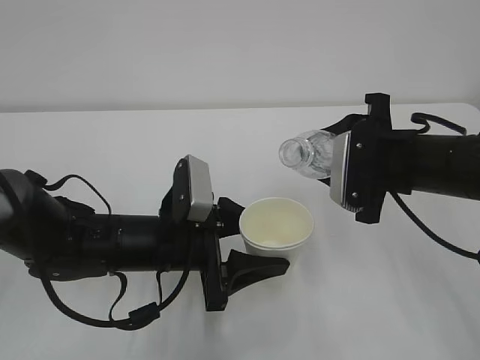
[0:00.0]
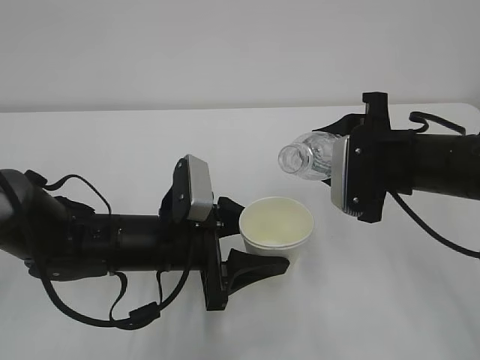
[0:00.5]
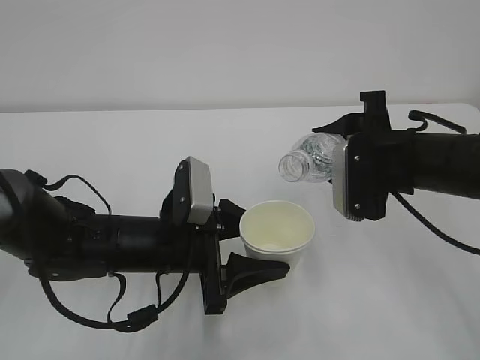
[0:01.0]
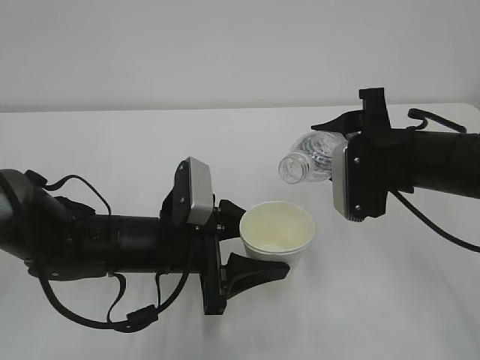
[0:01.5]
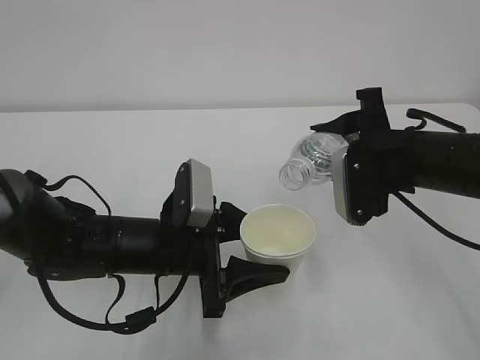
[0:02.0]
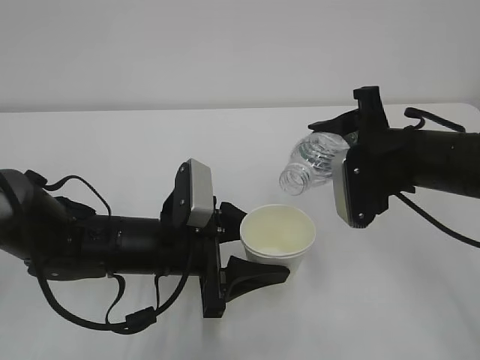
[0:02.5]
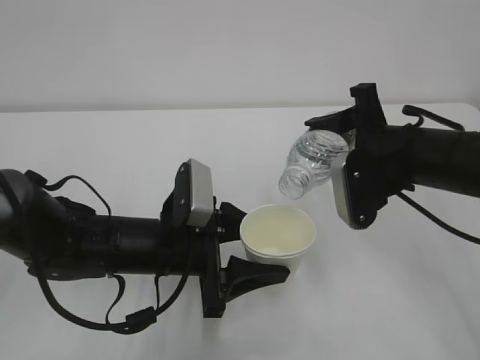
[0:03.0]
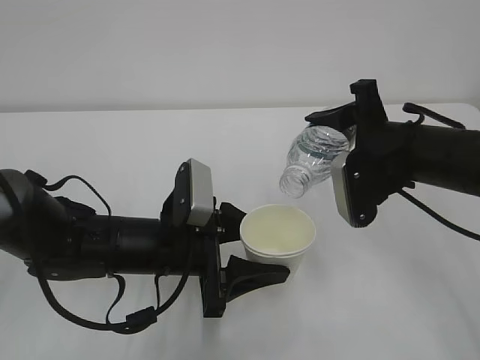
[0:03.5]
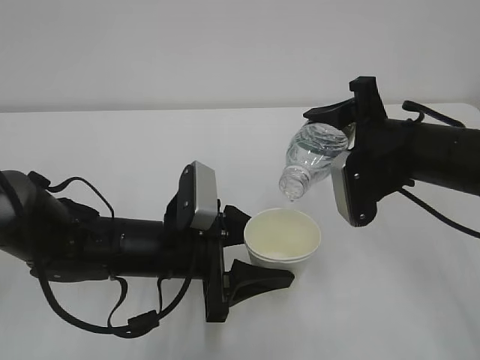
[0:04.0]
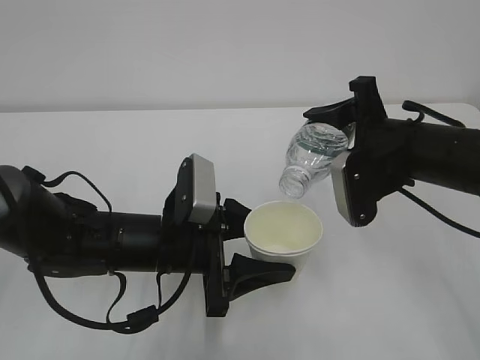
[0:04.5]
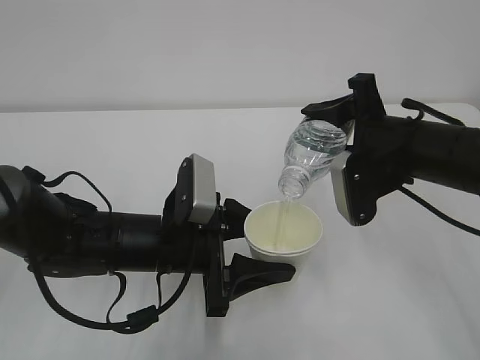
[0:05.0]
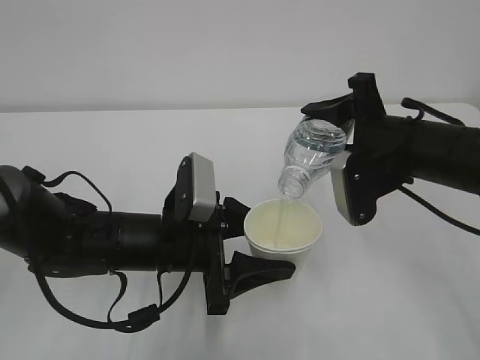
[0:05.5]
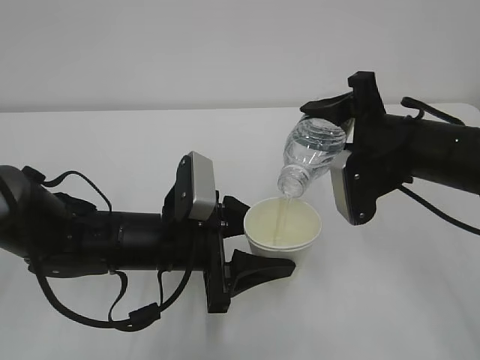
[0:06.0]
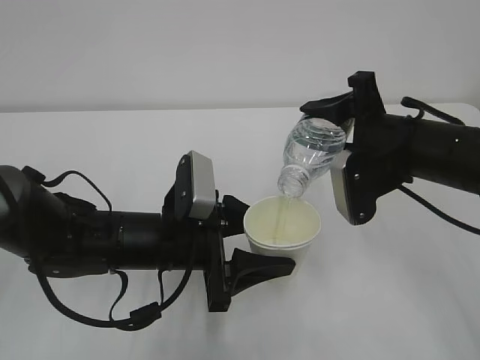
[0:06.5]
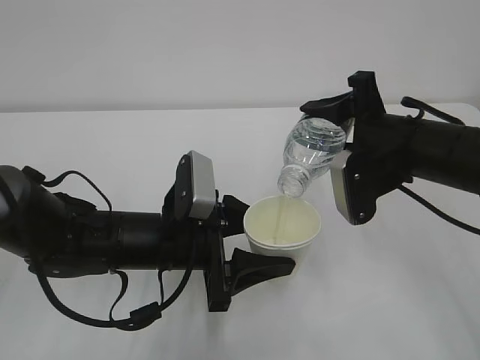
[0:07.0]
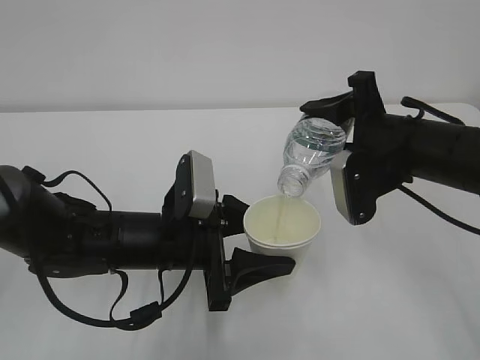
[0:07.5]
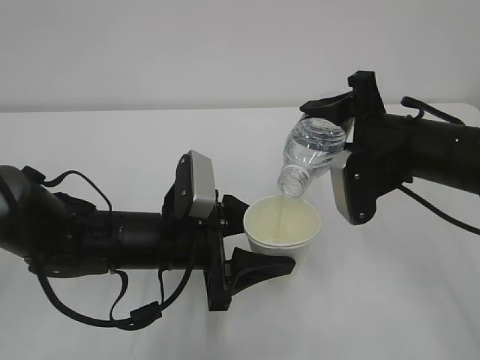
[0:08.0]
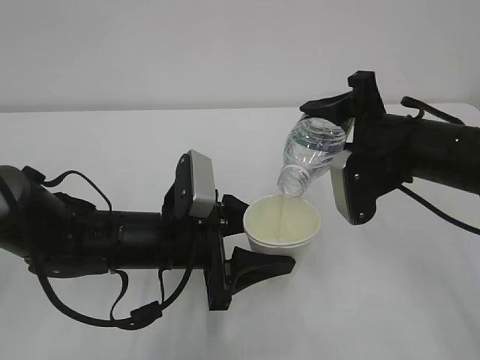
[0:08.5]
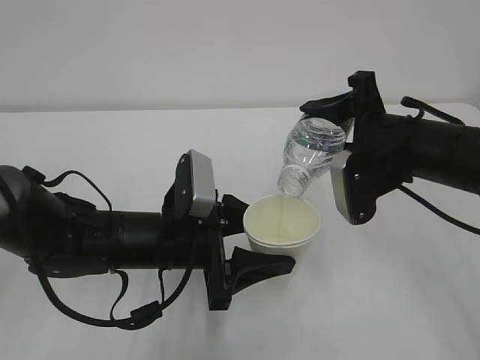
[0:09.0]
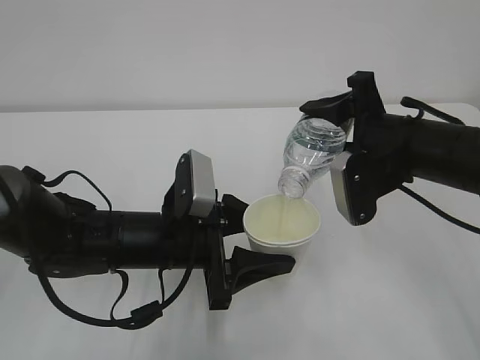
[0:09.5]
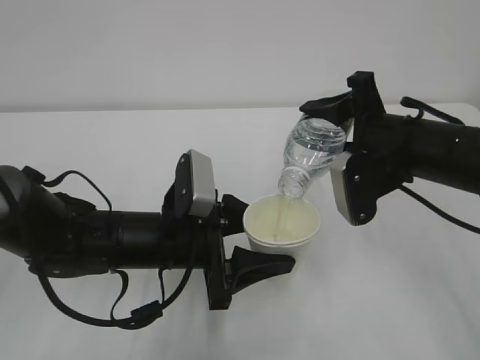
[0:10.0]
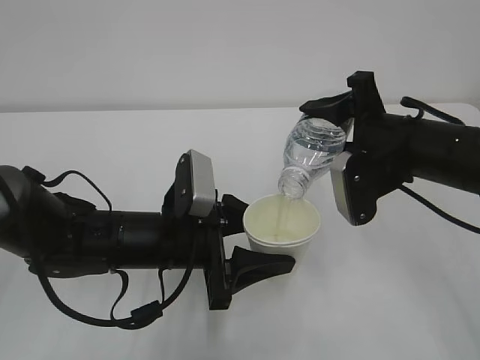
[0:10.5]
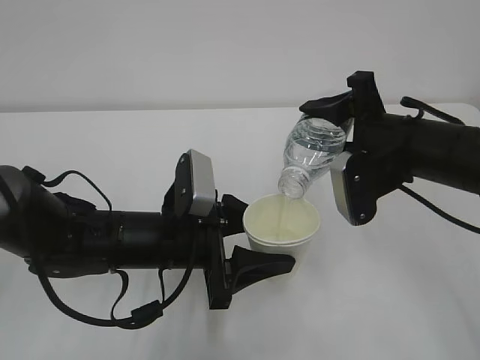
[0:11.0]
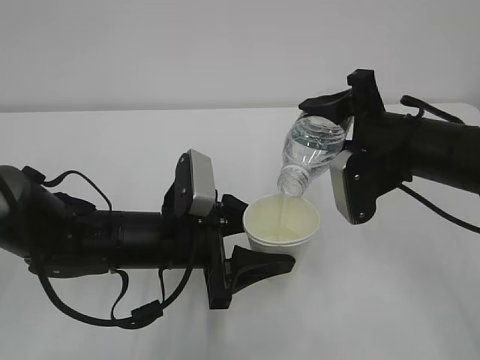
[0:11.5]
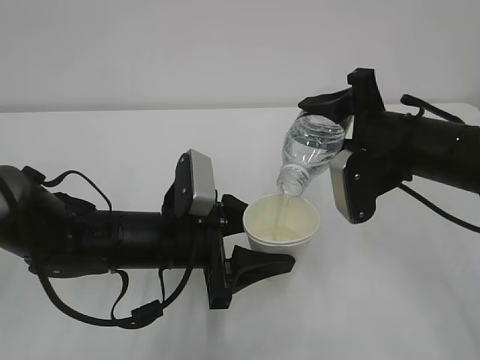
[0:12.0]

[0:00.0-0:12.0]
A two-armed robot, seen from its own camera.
0:00.0 to 0:02.0: The grippers move only a little.
0:02.0 to 0:04.0: The grippers move only a little.
0:04.0 to 0:08.0: Both grippers stay about where they are.
0:08.0 to 0:12.0: Both grippers stay about where they are.

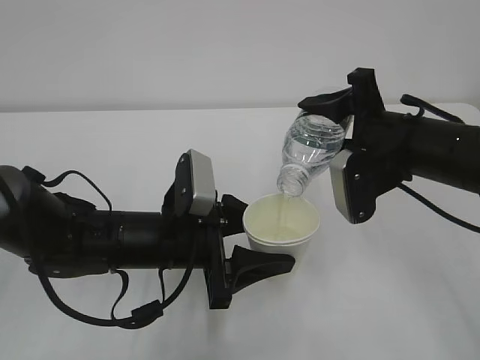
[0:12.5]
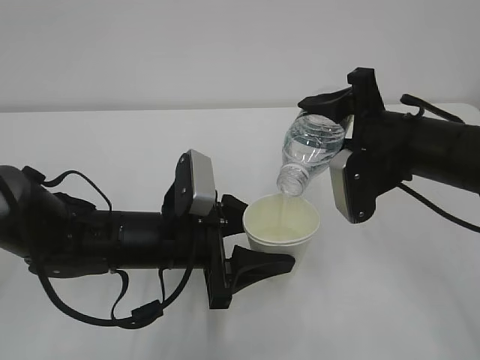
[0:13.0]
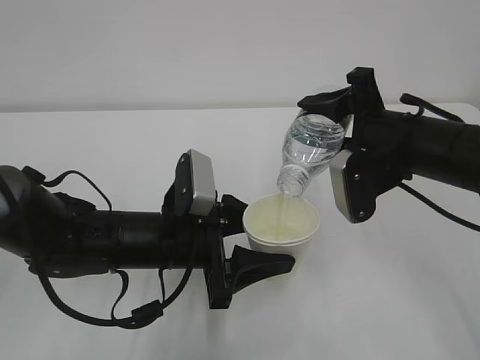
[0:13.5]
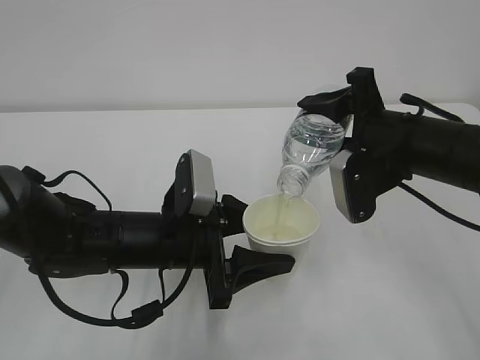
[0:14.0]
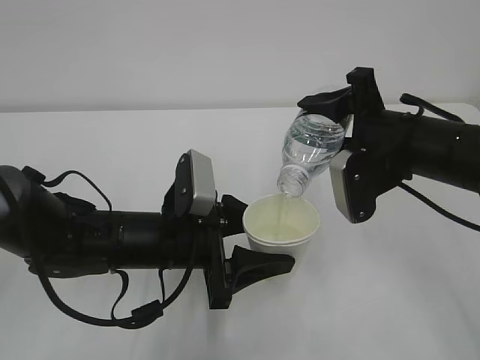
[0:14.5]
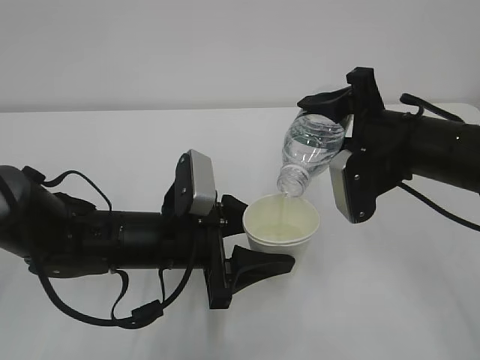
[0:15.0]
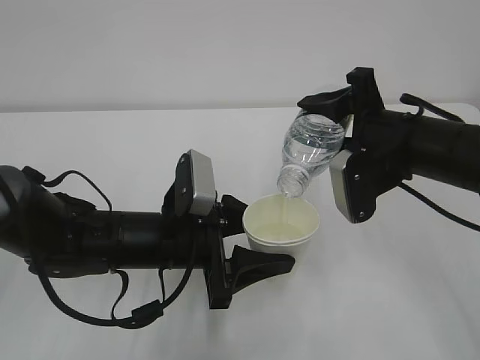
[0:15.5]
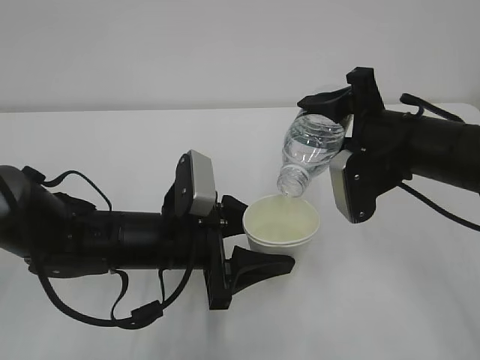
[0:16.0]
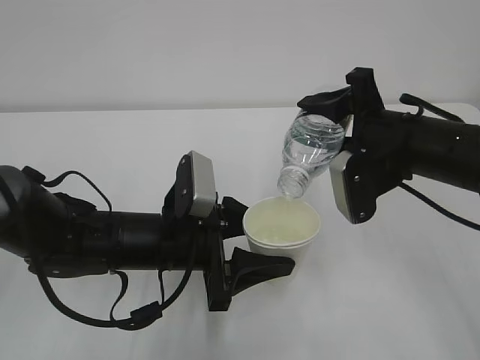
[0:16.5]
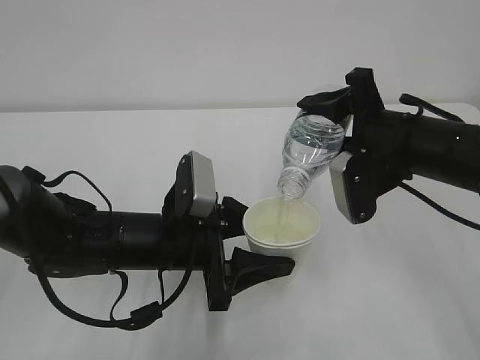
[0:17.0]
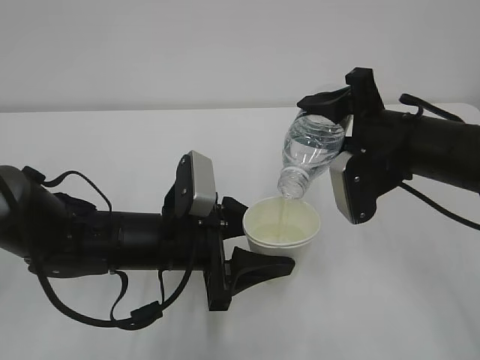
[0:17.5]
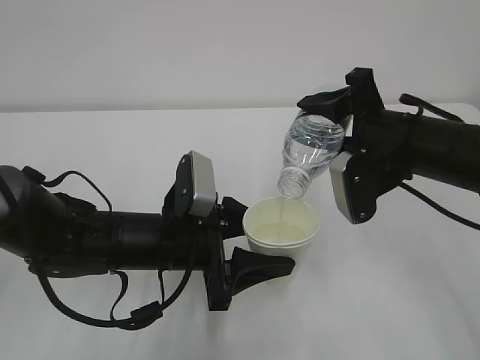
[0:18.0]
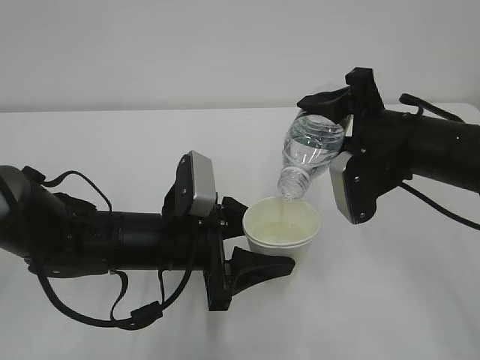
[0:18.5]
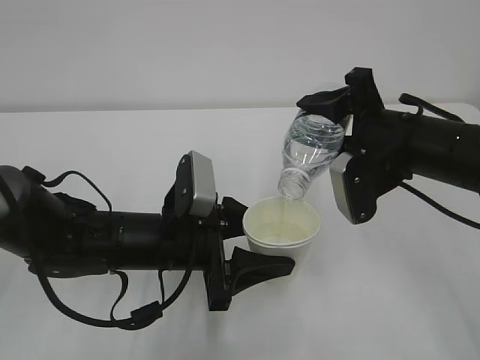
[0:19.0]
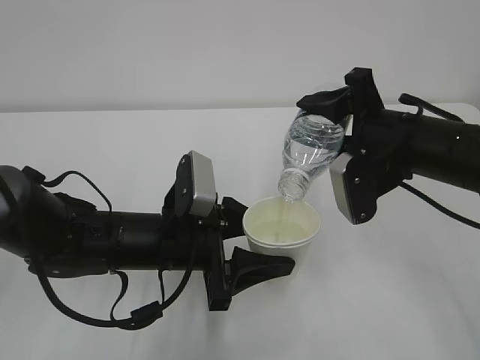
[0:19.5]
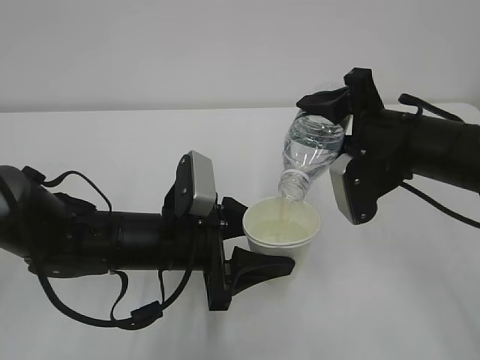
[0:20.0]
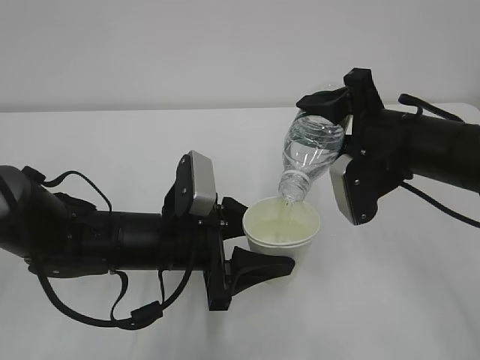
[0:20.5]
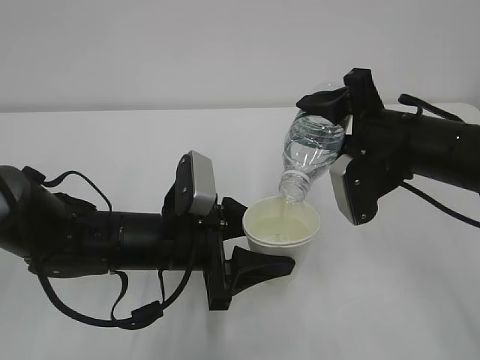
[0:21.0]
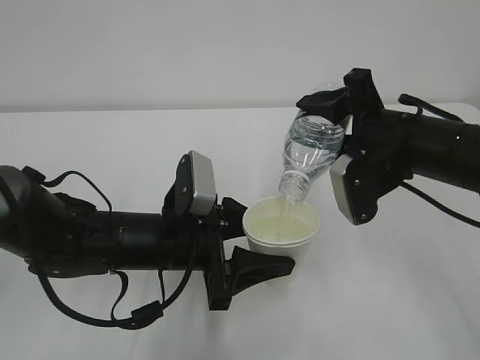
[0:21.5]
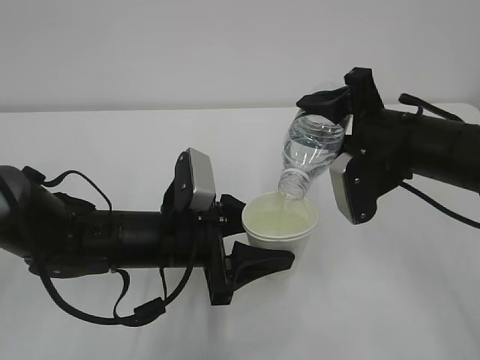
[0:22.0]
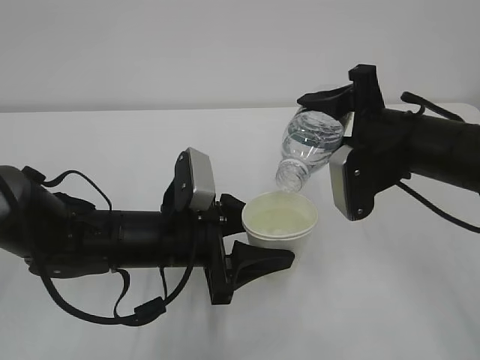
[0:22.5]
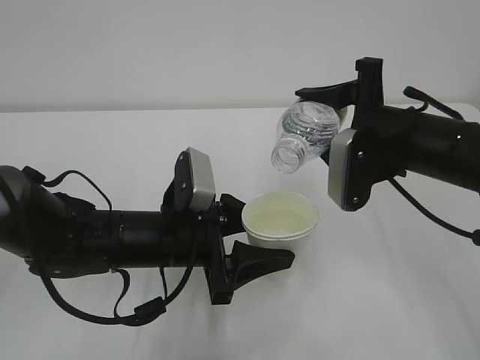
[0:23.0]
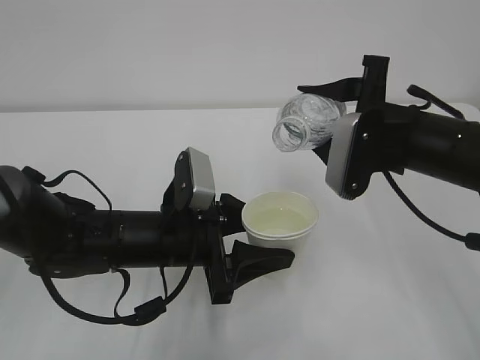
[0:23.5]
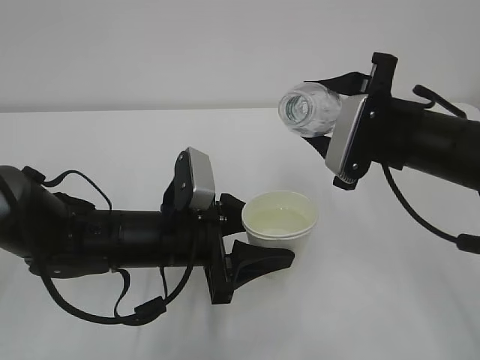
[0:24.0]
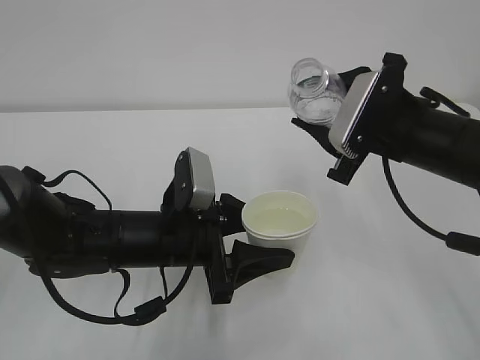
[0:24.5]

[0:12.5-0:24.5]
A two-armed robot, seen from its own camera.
0:12.5 to 0:18.5: The two grippers keep their place.
0:18.5 to 0:20.5: Neither gripper changes place.
0:20.5 to 0:22.5: There are only small adjustments of the grippers.

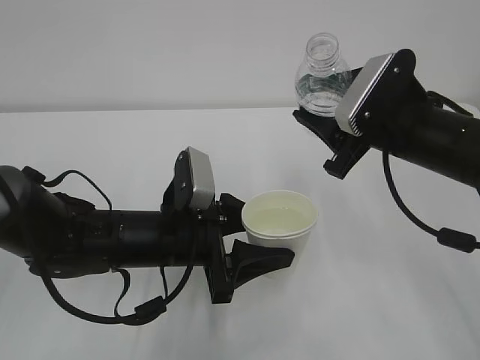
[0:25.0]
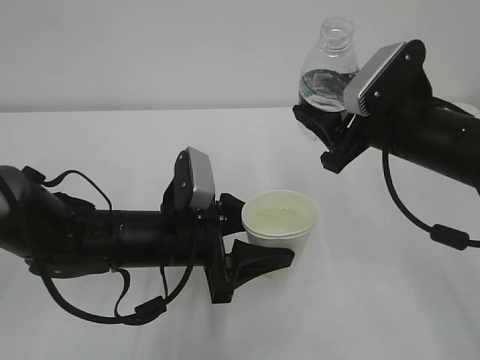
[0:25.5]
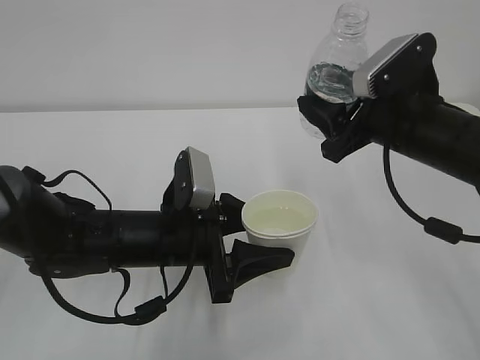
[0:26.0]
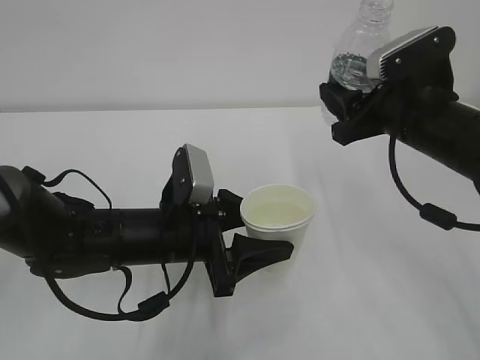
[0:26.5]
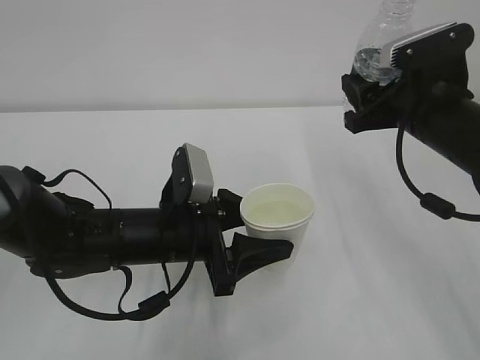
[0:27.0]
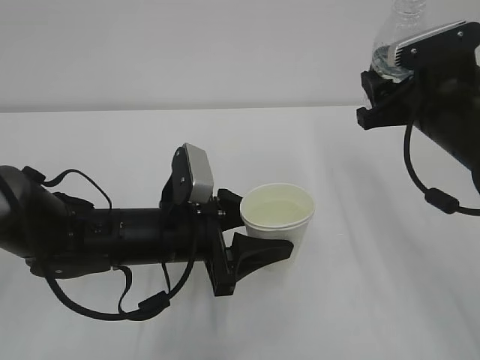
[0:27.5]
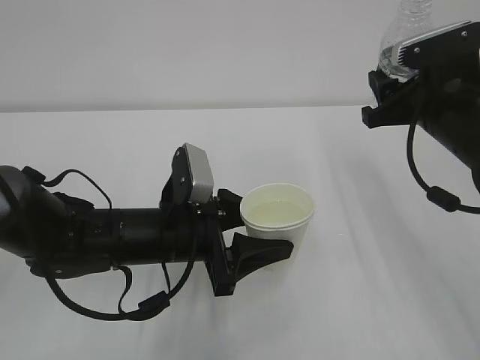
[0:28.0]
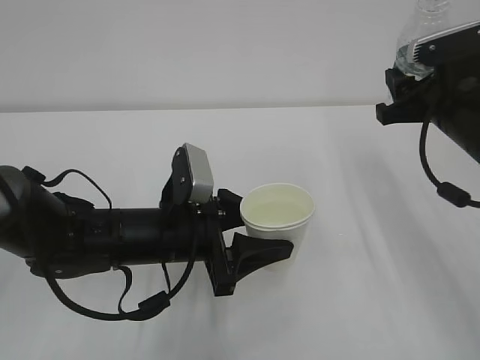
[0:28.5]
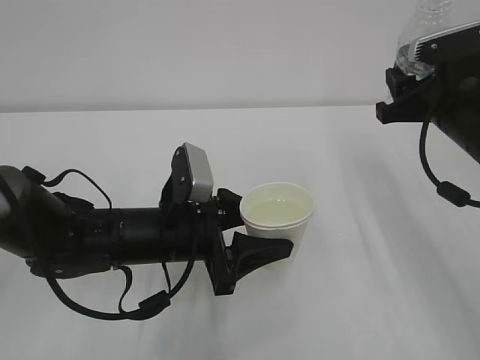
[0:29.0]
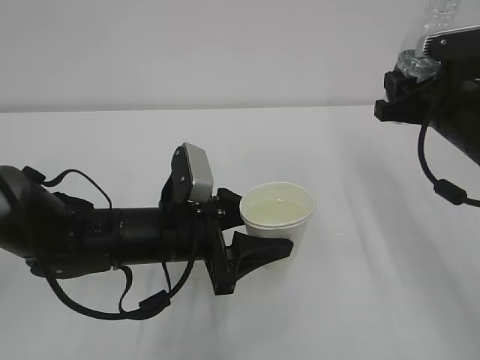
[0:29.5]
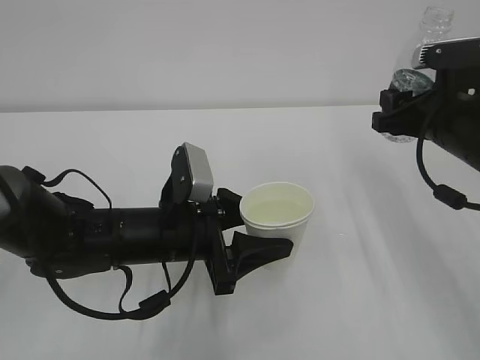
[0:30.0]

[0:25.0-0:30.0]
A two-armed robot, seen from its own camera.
0:27.5 to 0:30.0: There are only small adjustments of the grippers.
